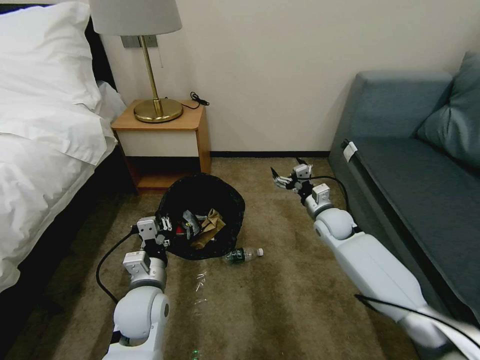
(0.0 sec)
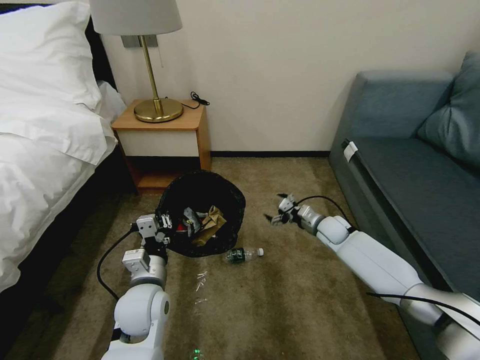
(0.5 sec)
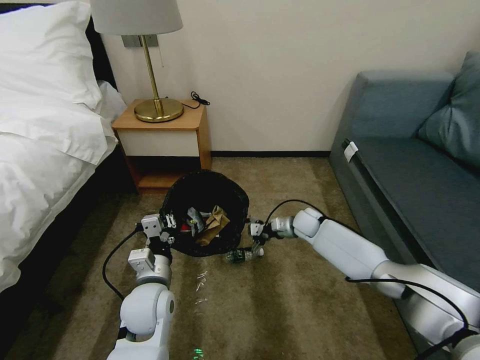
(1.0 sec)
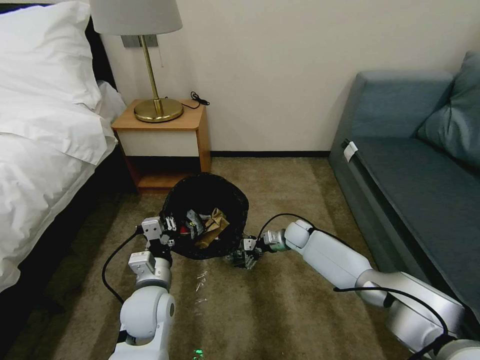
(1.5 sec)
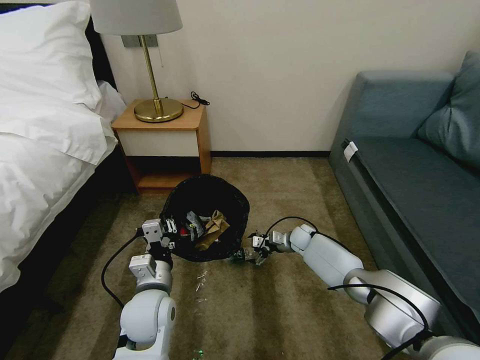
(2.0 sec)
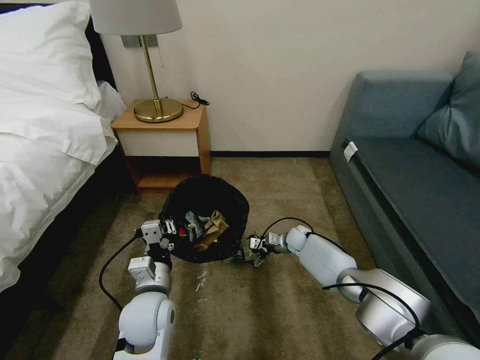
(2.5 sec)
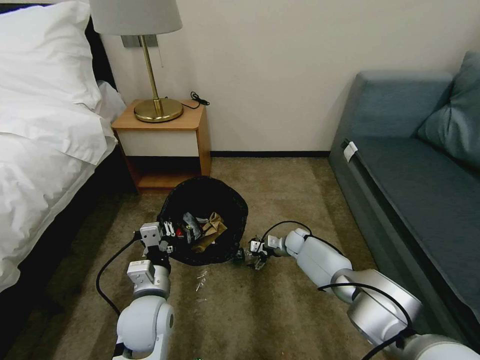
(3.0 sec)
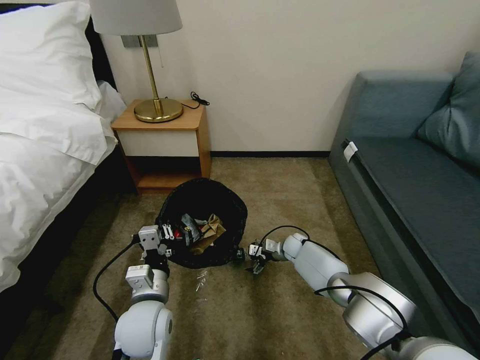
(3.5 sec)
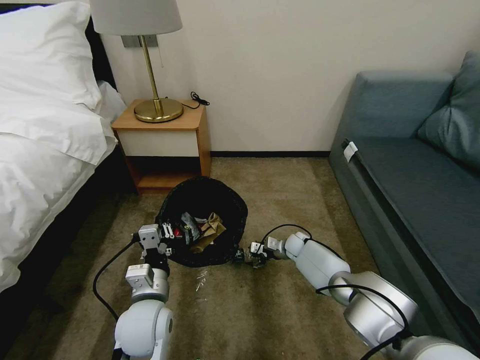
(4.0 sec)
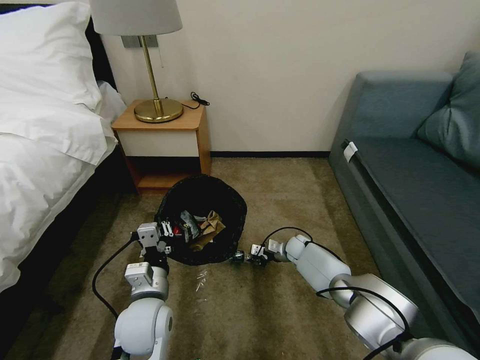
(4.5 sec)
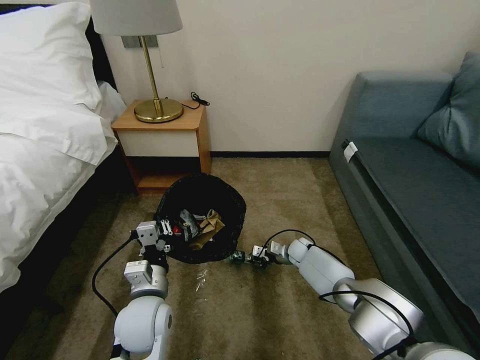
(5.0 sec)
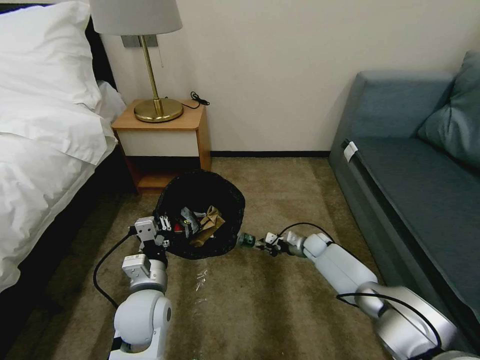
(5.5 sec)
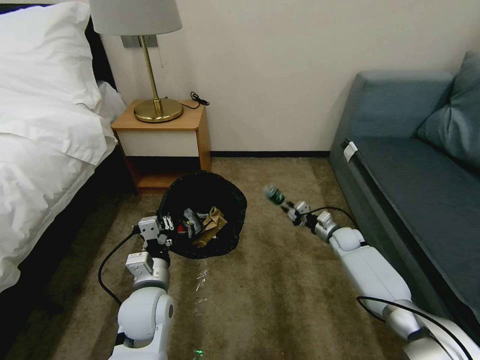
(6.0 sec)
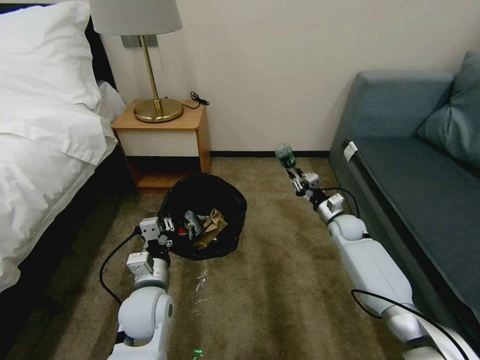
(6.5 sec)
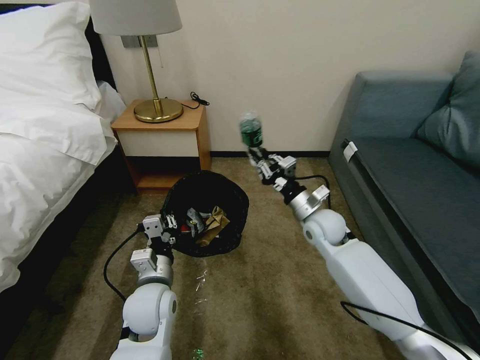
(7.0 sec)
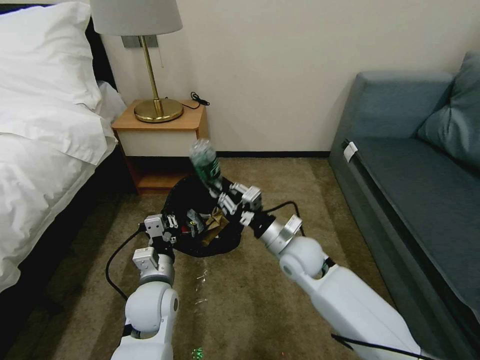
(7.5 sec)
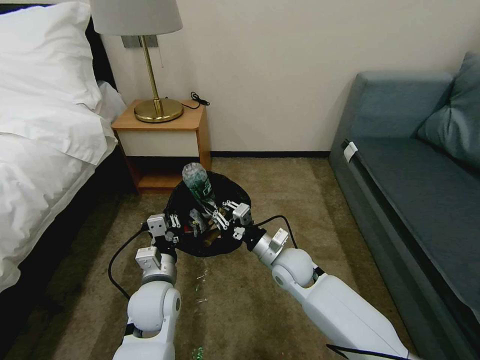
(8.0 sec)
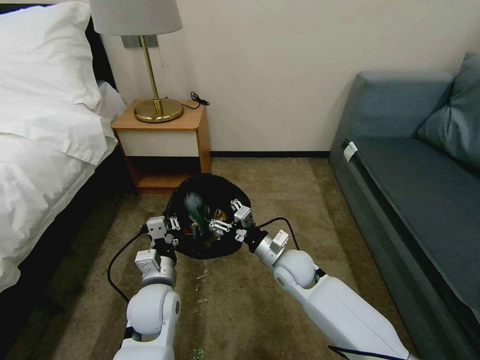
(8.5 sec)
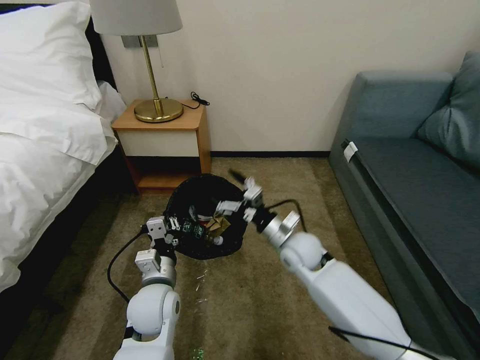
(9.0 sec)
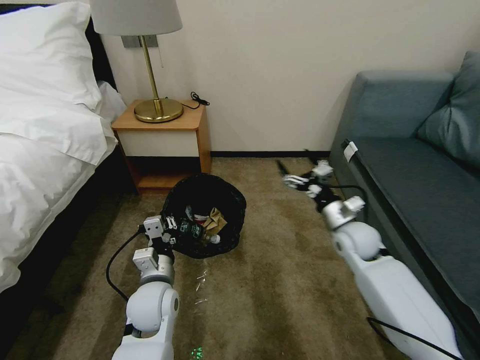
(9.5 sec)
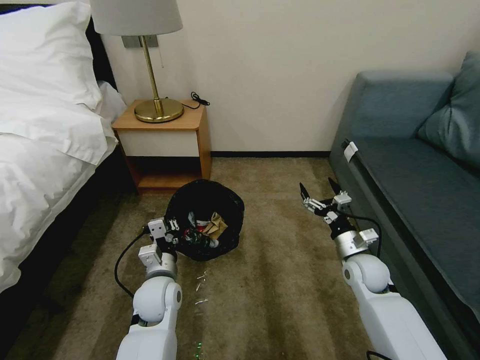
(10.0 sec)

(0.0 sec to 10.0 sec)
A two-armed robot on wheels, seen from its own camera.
Task of the whole recording: Pick up the trash bin, then pick up the garbage on the floor and place it into the trash bin.
0.0 sec - 2.0 sec: The right gripper travels downward by roughly 15 cm.
2.0 sec - 4.0 sec: The grippers make only small movements.
4.0 sec - 6.0 sec: The right gripper travels to the right and upward by roughly 15 cm, and closes its fingers.
6.0 sec - 8.0 sec: The right gripper heads to the left, backward and upward, covering roughly 30 cm.
8.0 sec - 10.0 sec: The right gripper goes approximately 20 cm to the right, and opens.

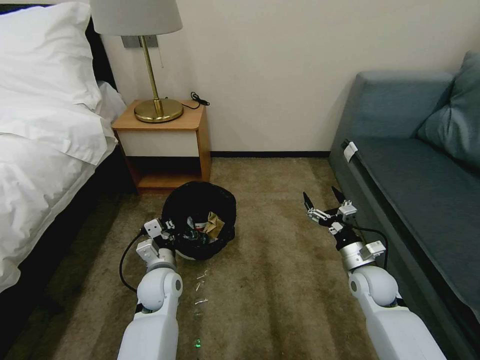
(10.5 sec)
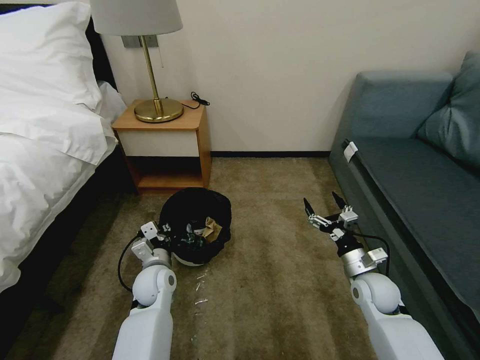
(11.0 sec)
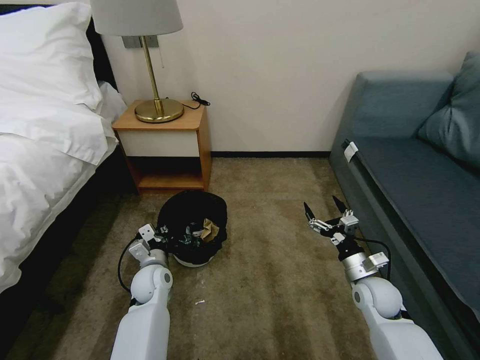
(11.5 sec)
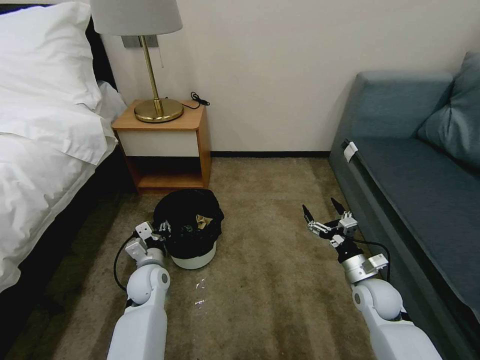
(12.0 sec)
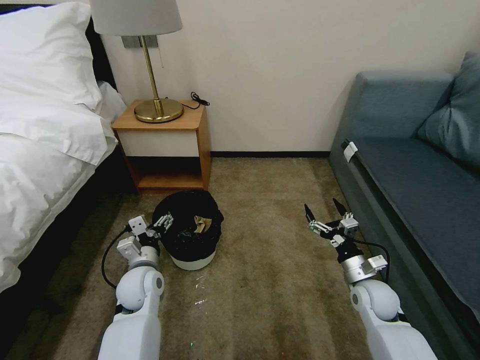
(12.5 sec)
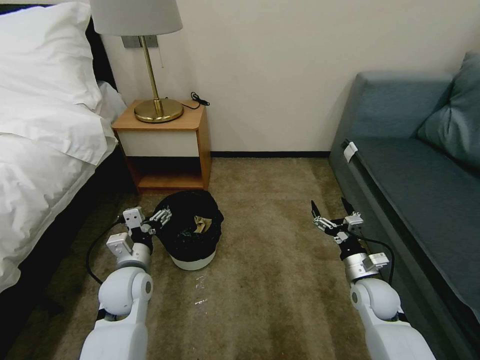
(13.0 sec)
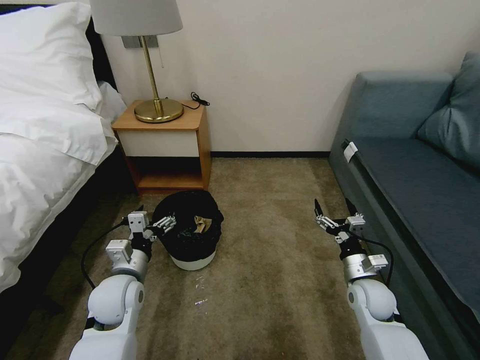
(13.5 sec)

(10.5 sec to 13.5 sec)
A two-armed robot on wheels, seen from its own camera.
Task of the whole recording: Pick up the trash bin, then pick up the garbage on the floor and place it into the trash bin.
10.5 sec - 12.0 sec: The left gripper shifts by about 5 cm, and opens.
12.0 sec - 13.5 sec: The left gripper is displaced upward and backward by approximately 10 cm, and opens.

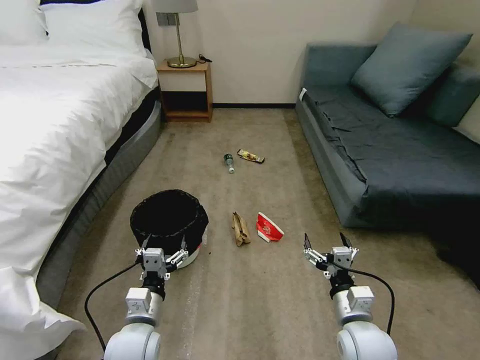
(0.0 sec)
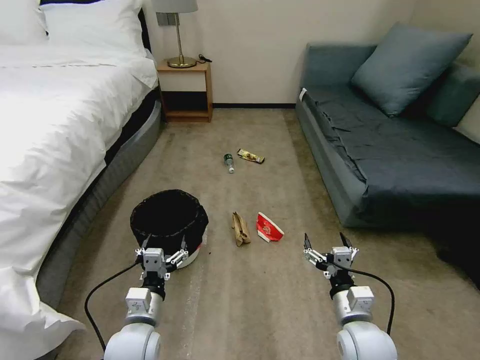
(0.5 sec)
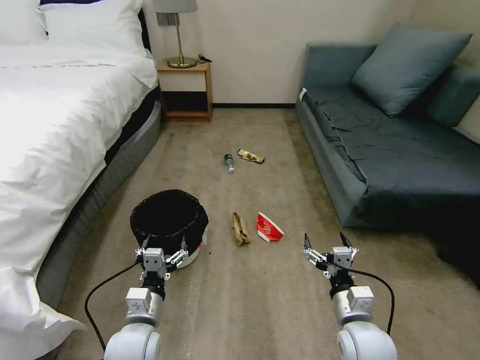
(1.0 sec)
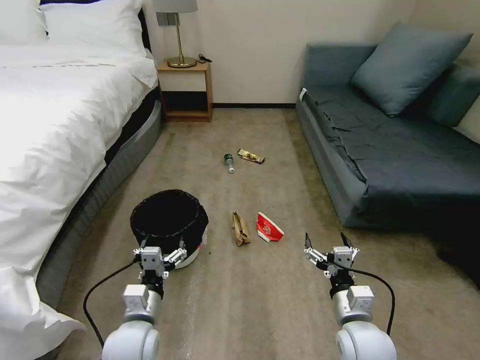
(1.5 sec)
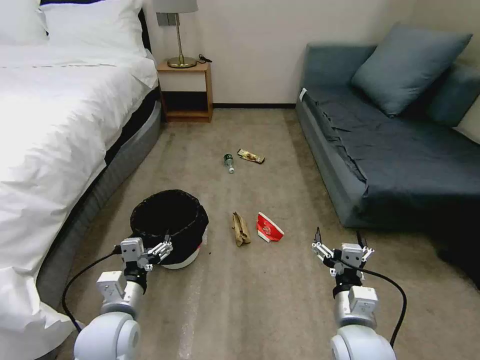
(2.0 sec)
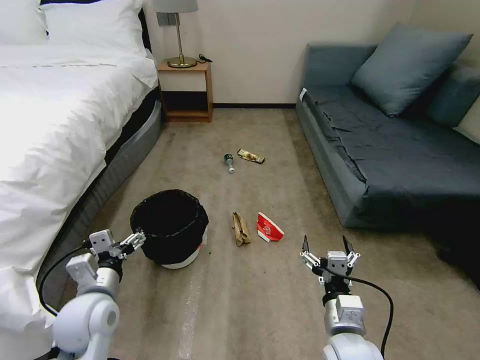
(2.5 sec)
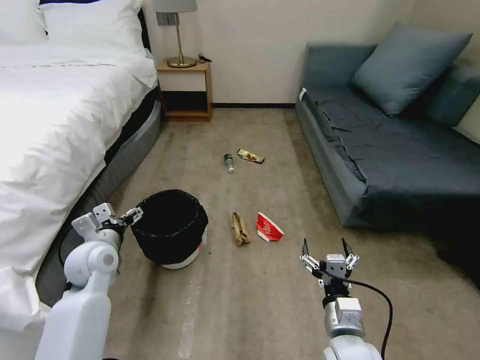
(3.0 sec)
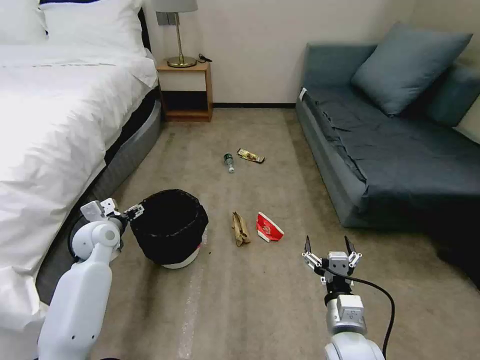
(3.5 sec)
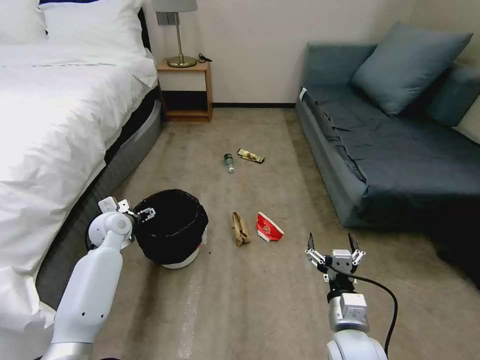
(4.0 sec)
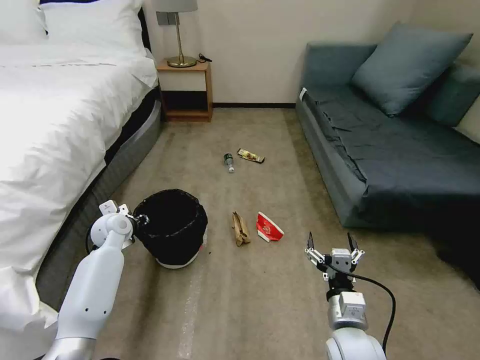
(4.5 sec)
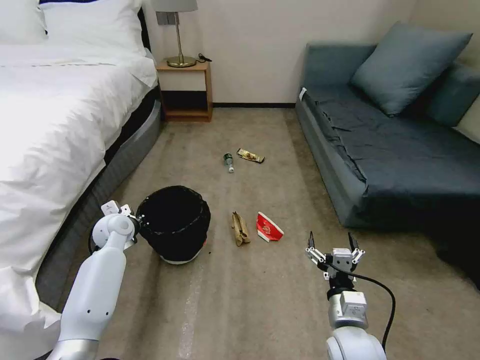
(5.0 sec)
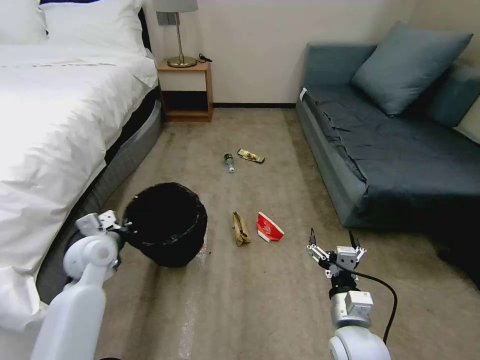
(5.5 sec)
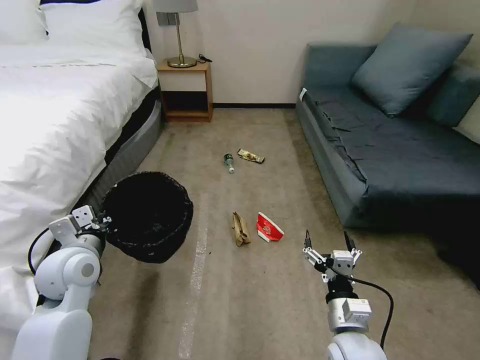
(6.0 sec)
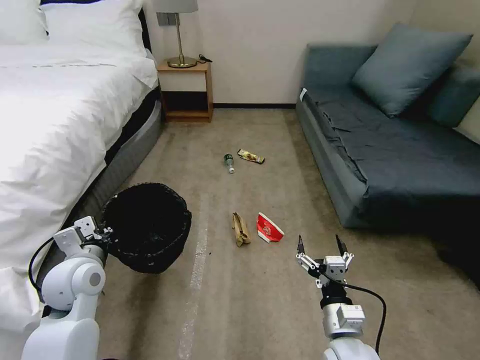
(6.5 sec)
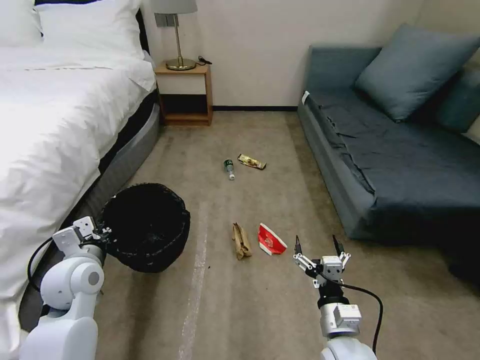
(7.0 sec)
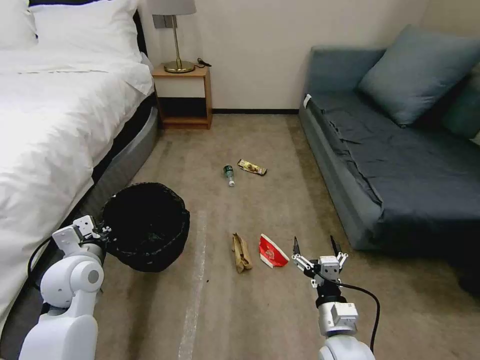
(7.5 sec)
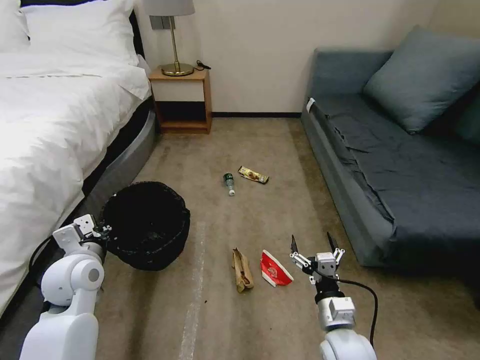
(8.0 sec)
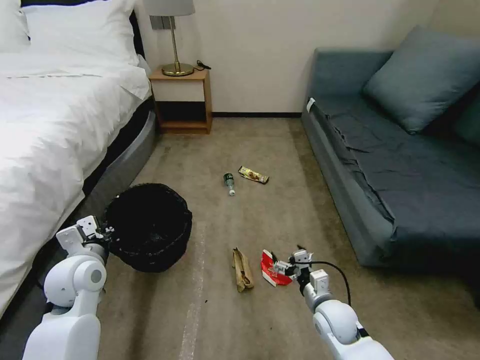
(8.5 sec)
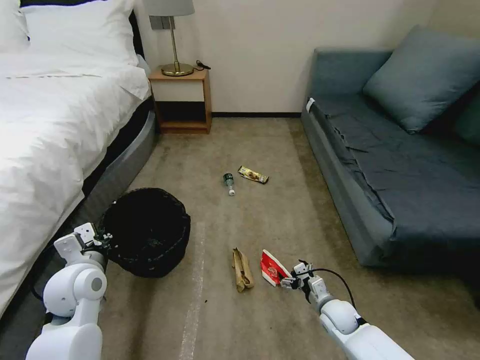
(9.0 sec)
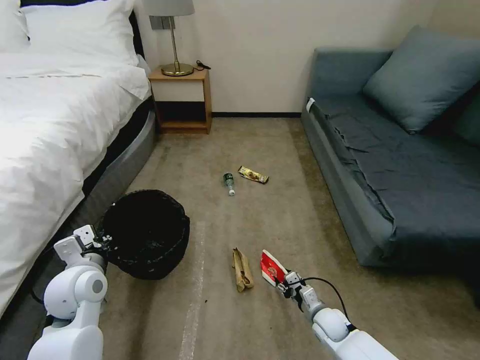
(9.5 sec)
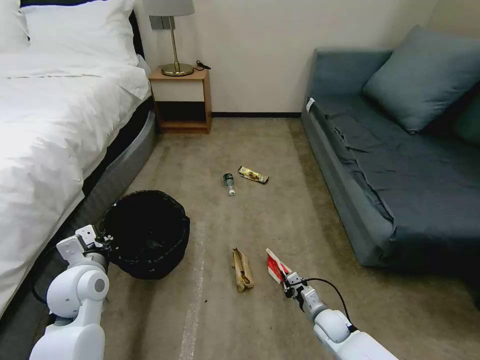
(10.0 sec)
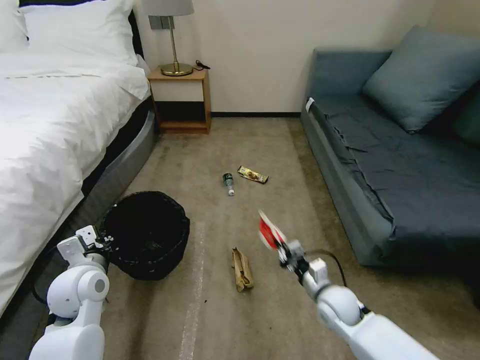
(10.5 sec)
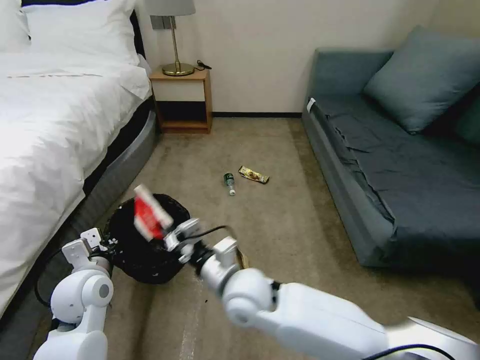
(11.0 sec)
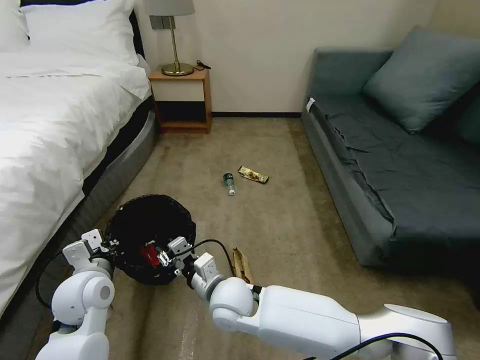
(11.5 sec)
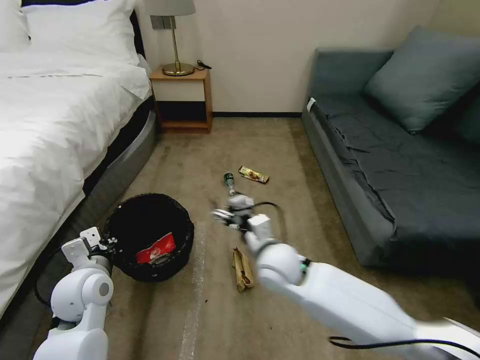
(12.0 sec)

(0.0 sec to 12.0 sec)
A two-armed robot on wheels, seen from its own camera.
Task of the whole recording: Pick up the trash bin, then pick up the garbage on the floor and place it into the trash bin.
2.0 sec - 4.0 sec: The left gripper goes about 25 cm forward.
4.0 sec - 6.0 sec: The left gripper heads backward and upward, covering about 15 cm, and closes.
8.0 sec - 10.0 sec: The right gripper travels downward and forward by some 20 cm, and closes.
10.0 sec - 12.0 sec: The right gripper heads upward and to the left, covering some 30 cm, and opens its fingers.
